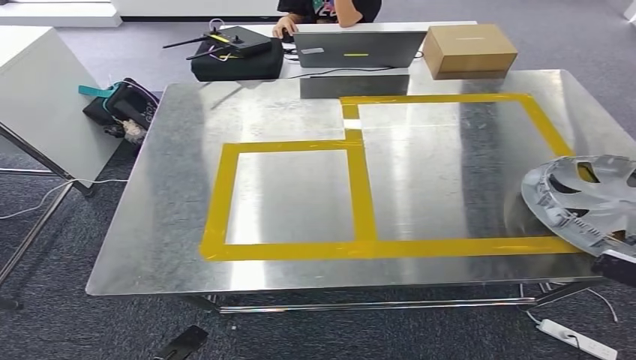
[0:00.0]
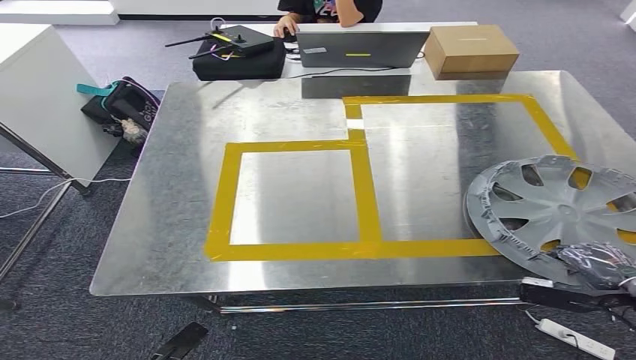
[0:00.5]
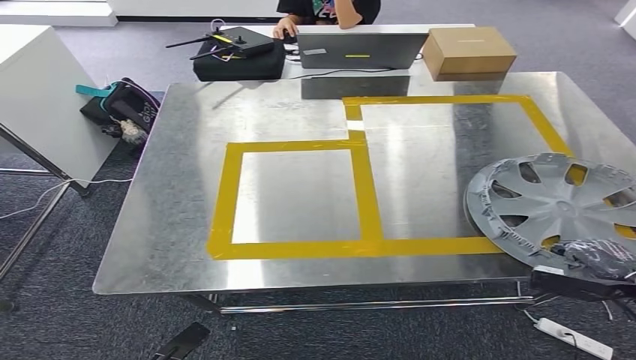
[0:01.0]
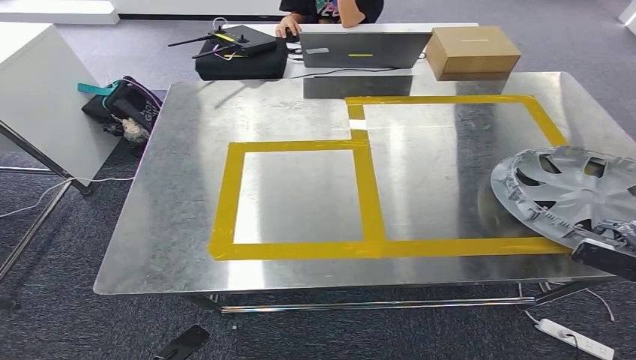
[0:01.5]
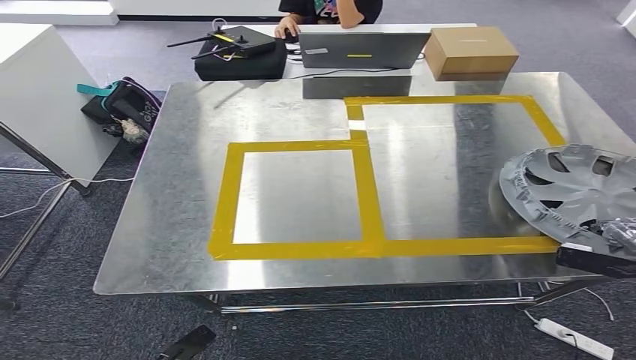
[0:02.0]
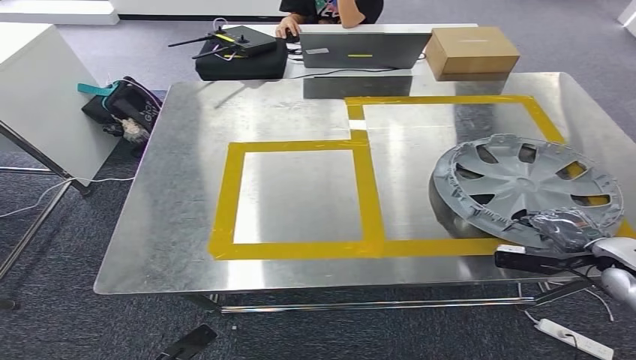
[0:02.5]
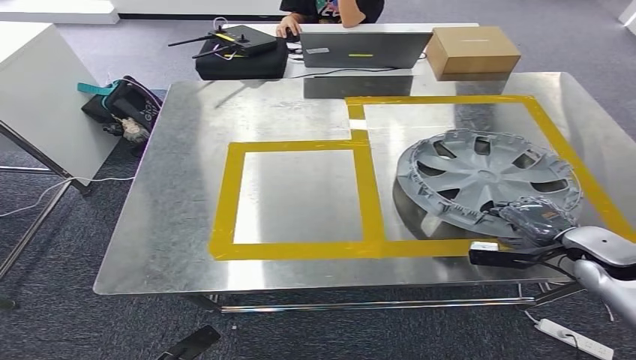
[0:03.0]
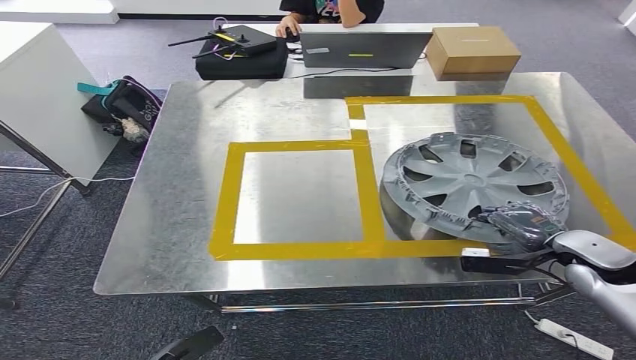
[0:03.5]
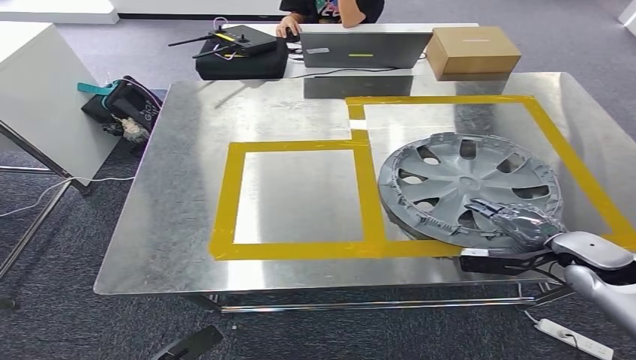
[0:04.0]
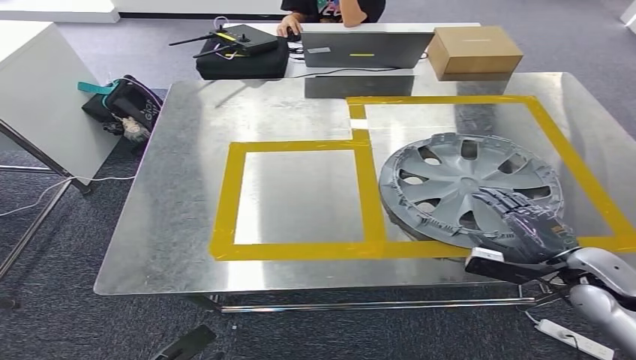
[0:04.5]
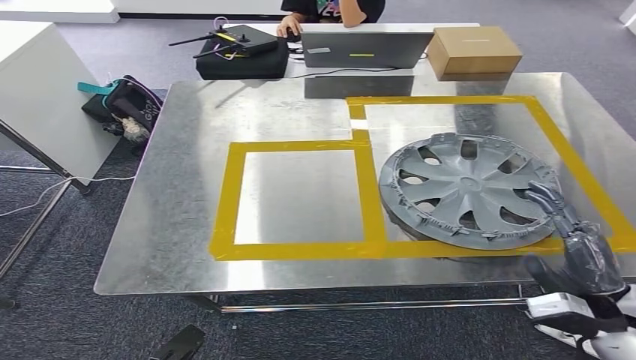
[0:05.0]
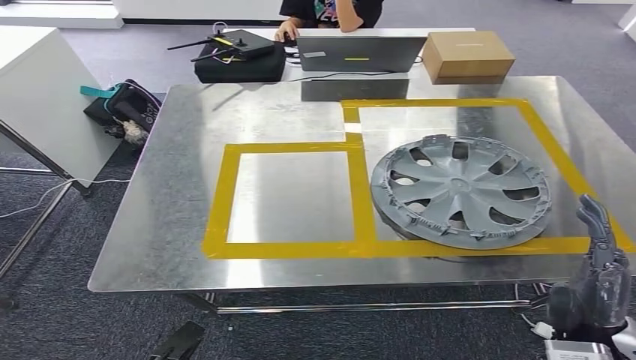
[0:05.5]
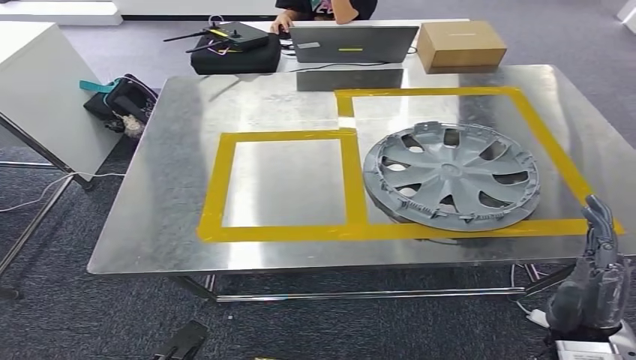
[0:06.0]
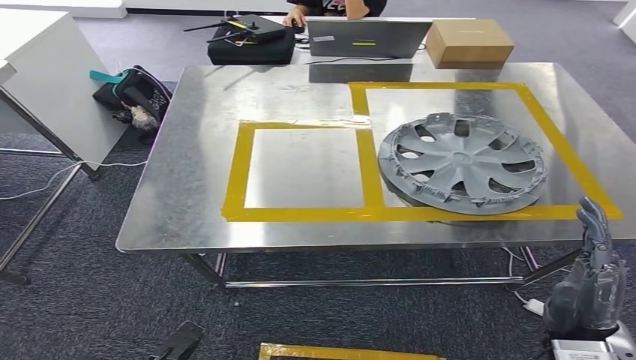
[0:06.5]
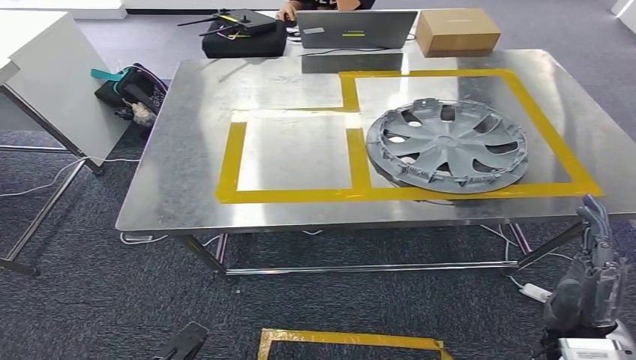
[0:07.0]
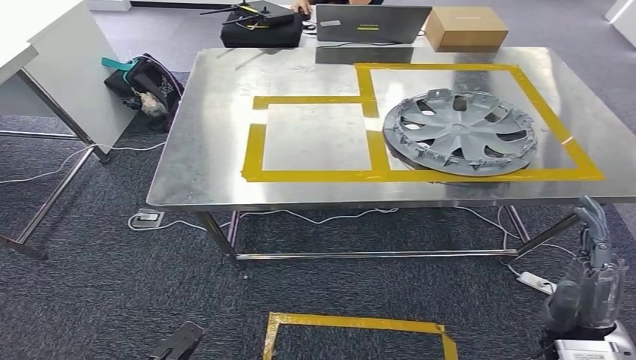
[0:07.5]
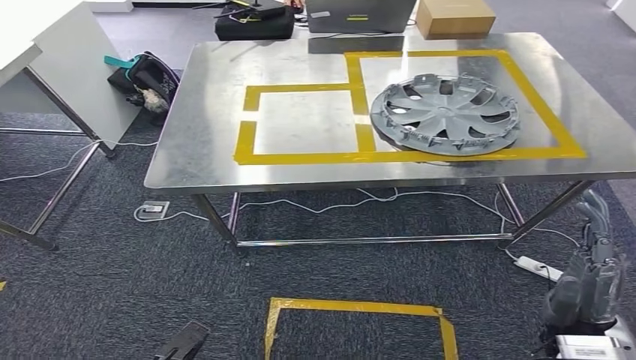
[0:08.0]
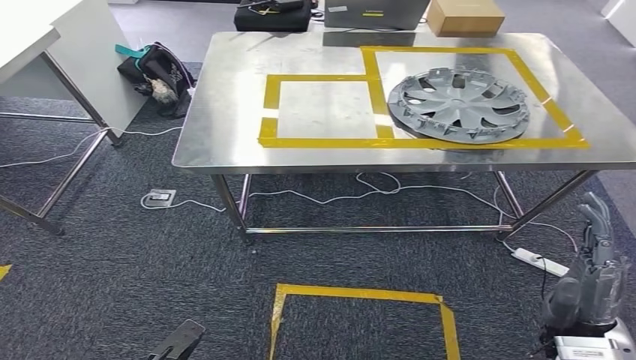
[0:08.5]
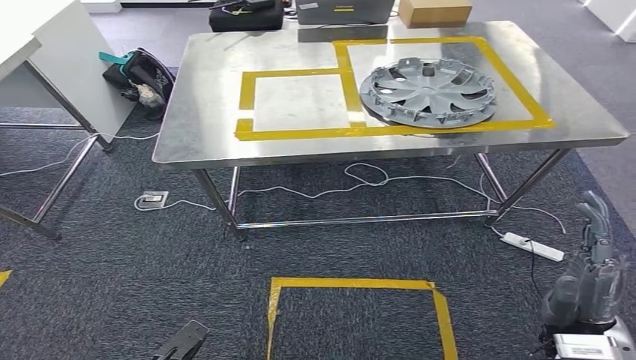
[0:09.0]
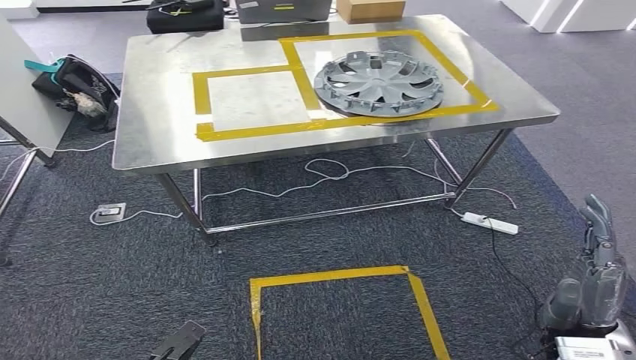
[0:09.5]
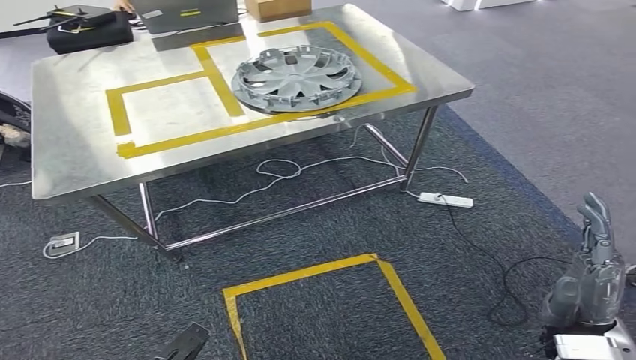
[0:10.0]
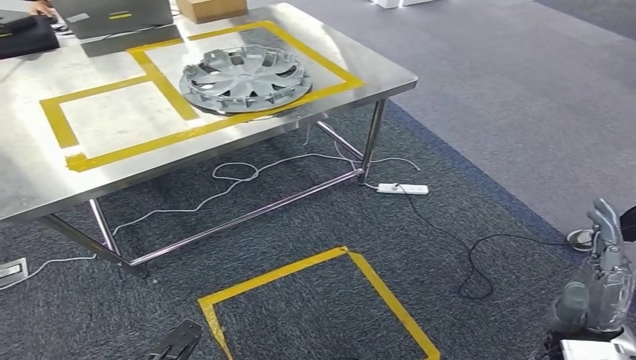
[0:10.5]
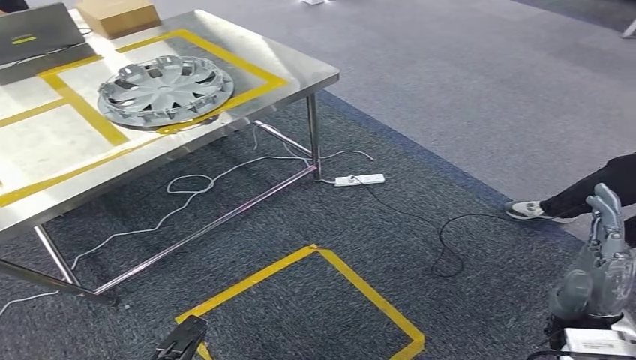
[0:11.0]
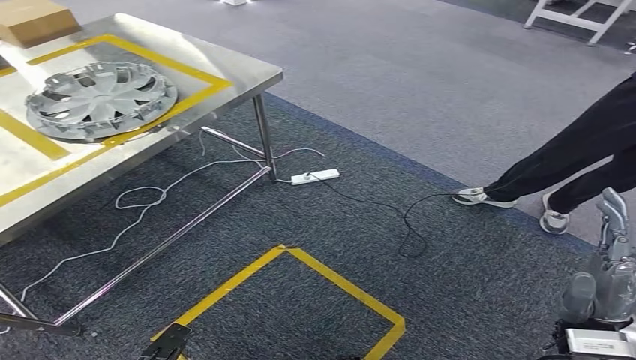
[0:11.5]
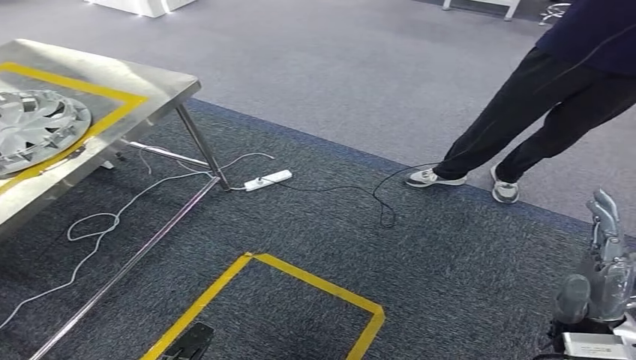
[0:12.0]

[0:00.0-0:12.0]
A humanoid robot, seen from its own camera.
Step, 0:00.0 to 0:05.5: Insert the small component into the corresponding slot on the workbench.
0:00.0 to 0:02.0: The right hand is displaced forward by approximately 5 cm.
0:02.0 to 0:04.0: The right hand shifts some 15 cm to the left.

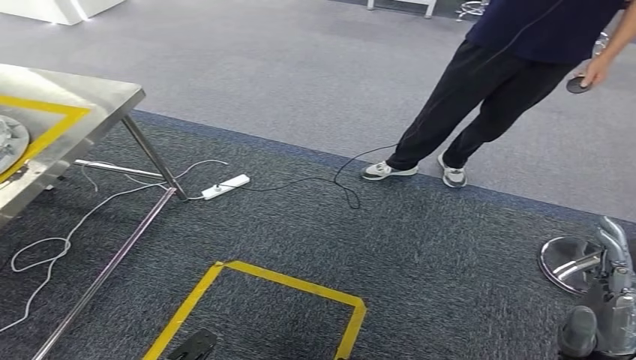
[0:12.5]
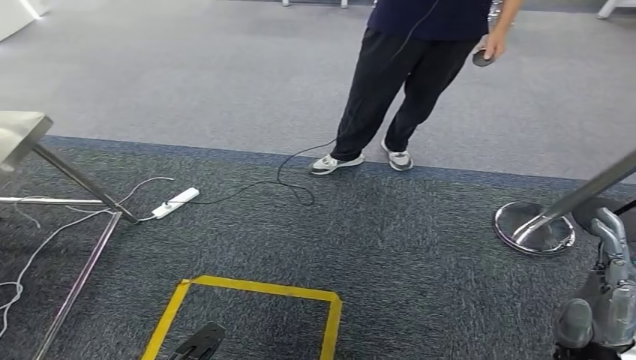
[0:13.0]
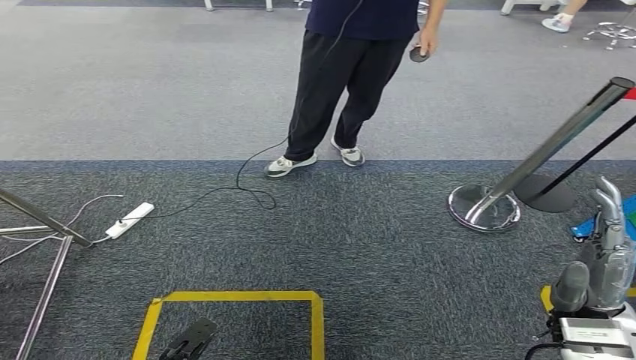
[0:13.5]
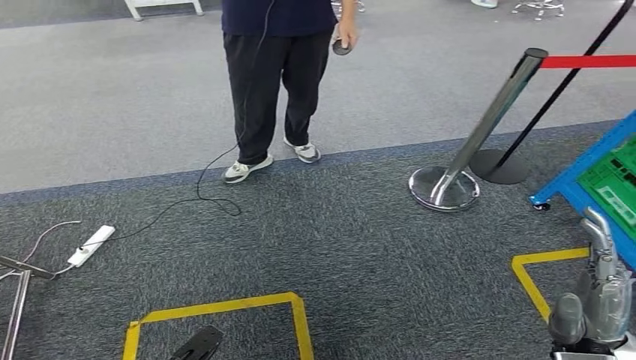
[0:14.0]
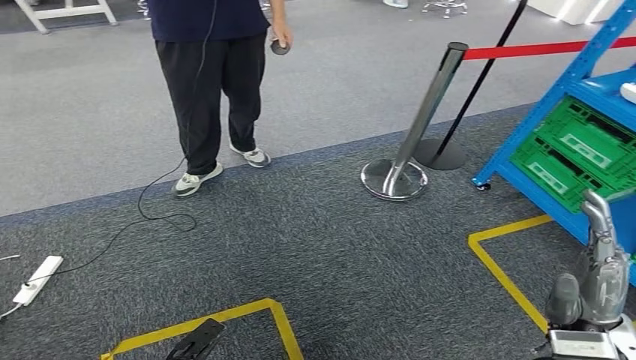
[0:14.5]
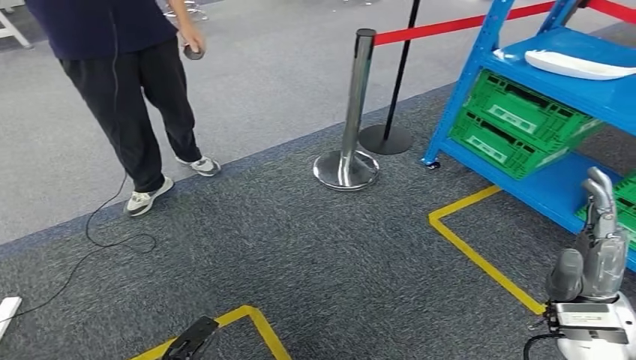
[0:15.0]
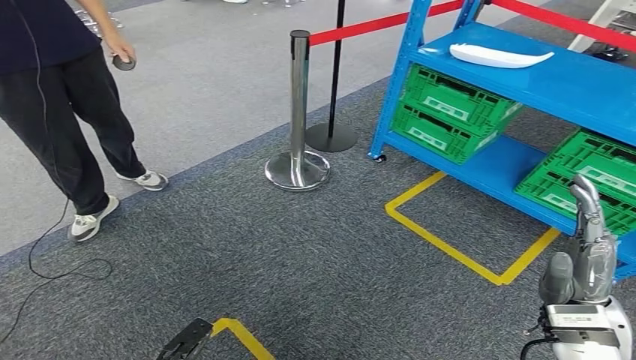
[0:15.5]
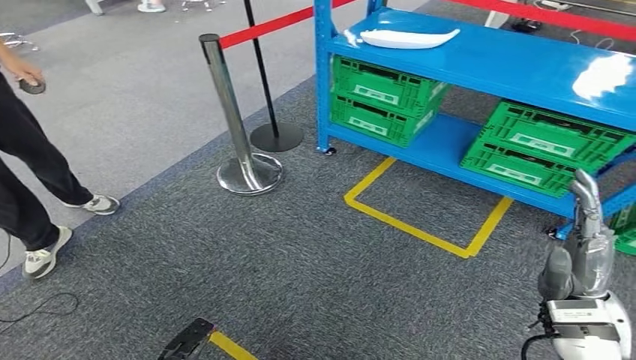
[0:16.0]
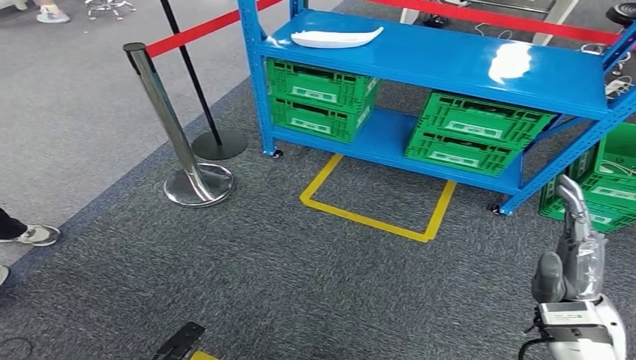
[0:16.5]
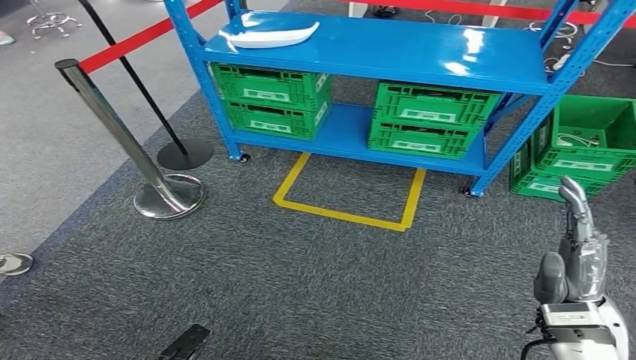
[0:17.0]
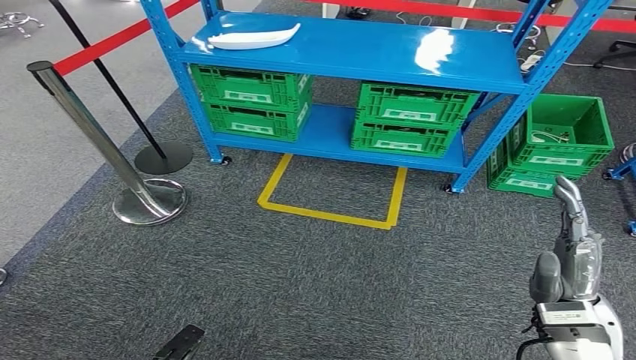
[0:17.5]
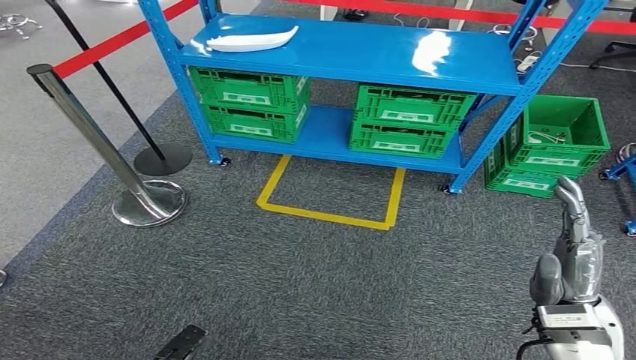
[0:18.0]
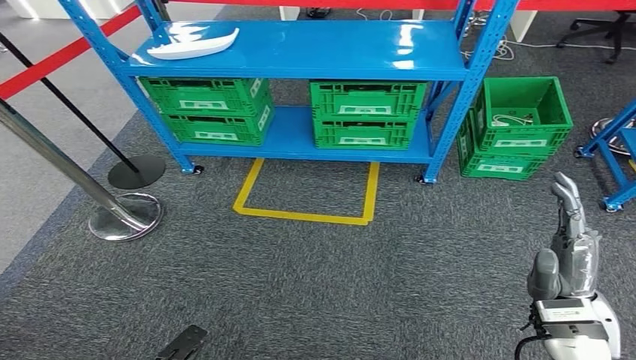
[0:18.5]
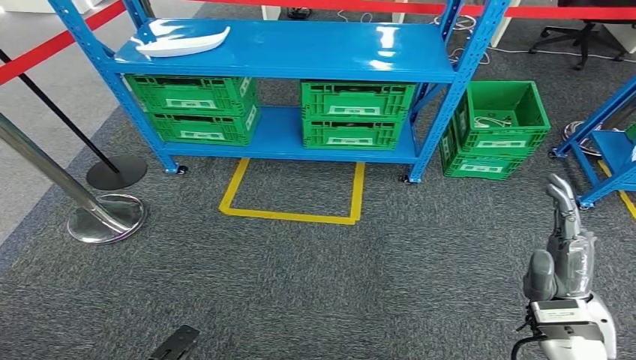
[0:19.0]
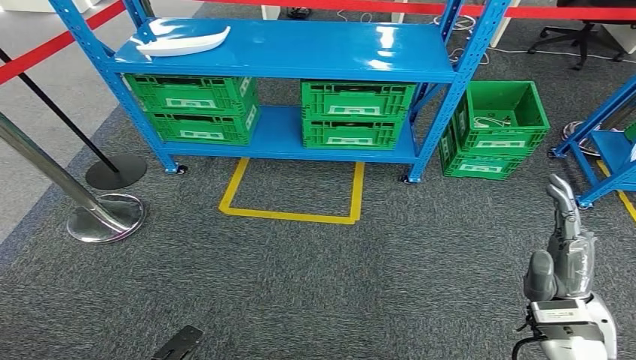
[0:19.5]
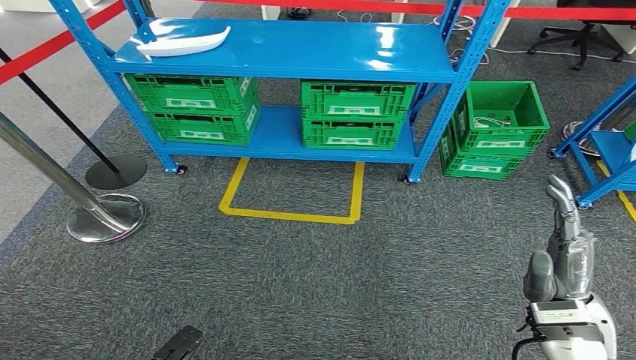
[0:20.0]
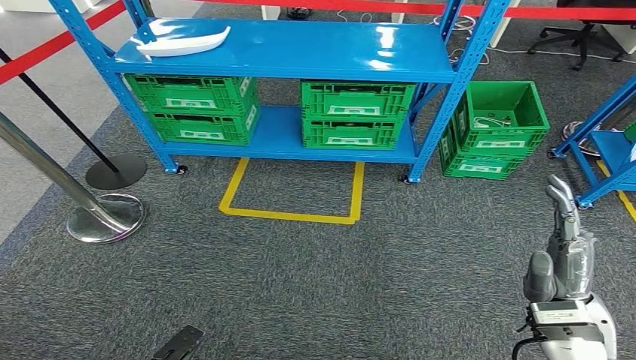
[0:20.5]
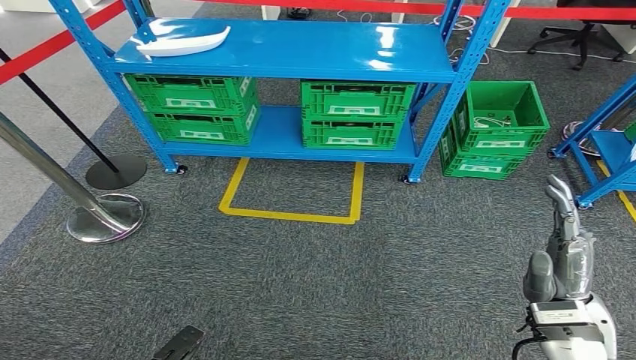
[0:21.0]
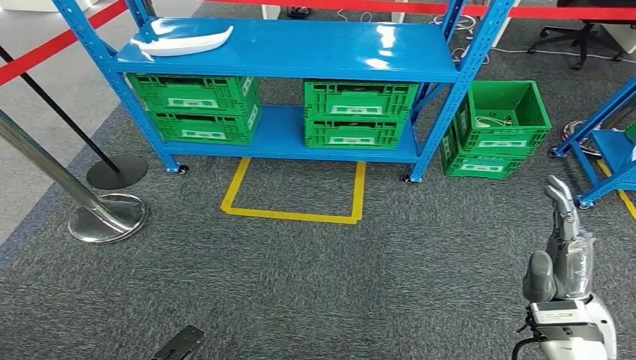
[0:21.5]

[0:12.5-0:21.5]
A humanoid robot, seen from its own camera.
Step, 0:12.5 to 0:21.5: Return to the initial position at the workbench.
0:19.5 to 0:21.5: Both hands stay put.
